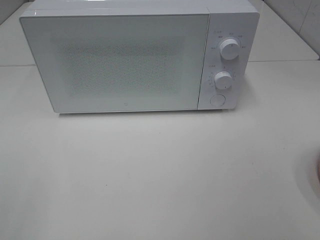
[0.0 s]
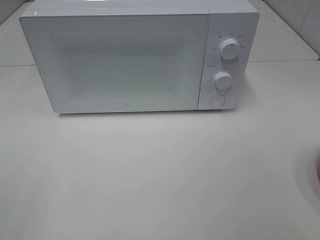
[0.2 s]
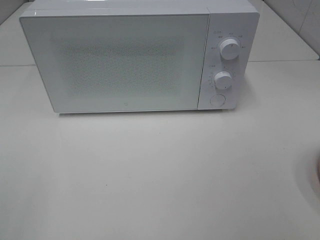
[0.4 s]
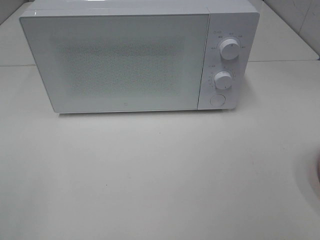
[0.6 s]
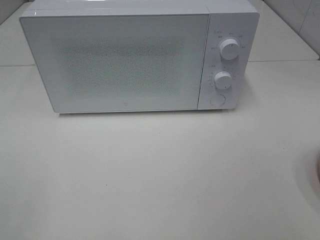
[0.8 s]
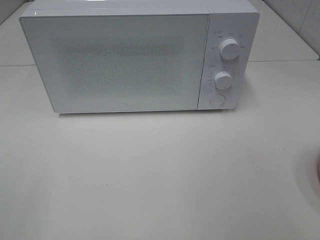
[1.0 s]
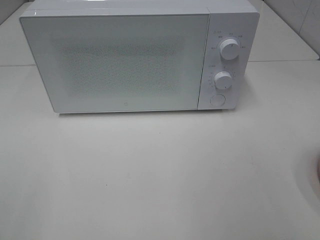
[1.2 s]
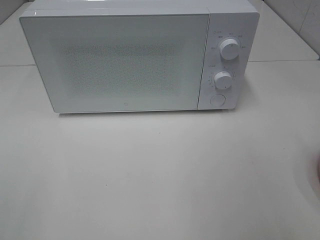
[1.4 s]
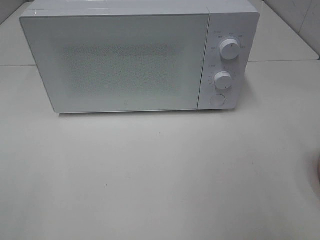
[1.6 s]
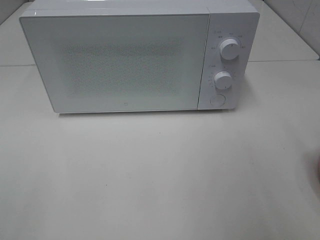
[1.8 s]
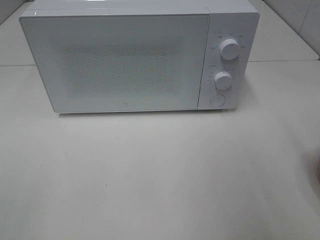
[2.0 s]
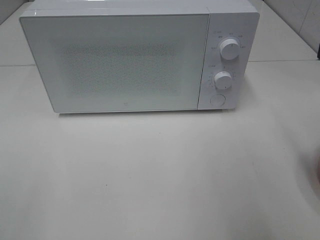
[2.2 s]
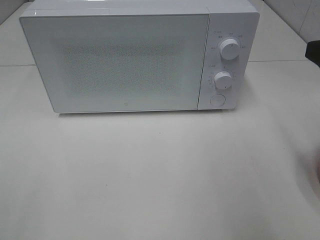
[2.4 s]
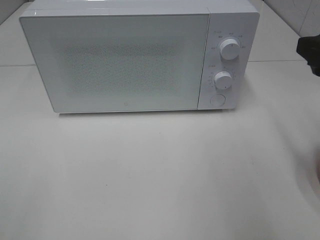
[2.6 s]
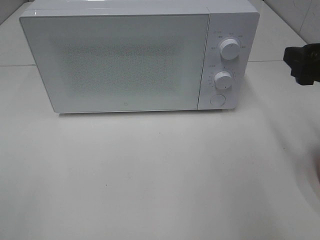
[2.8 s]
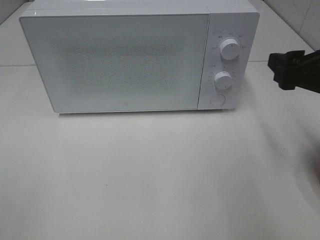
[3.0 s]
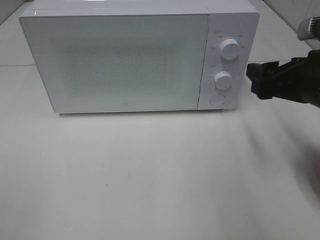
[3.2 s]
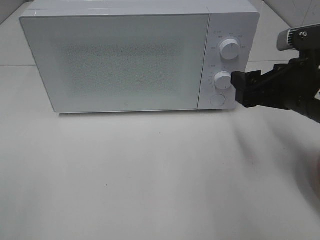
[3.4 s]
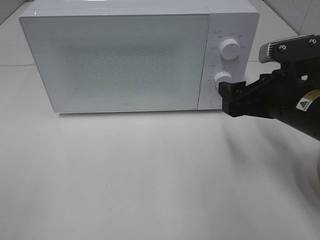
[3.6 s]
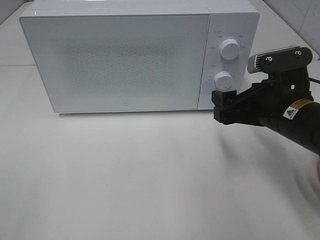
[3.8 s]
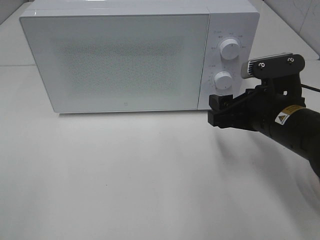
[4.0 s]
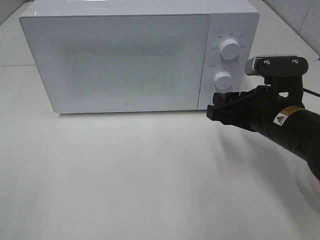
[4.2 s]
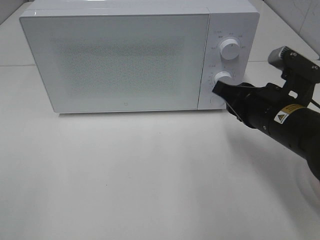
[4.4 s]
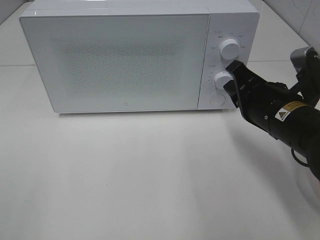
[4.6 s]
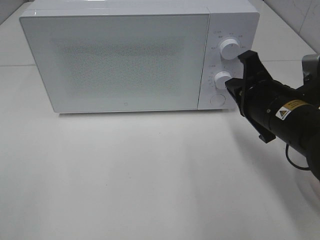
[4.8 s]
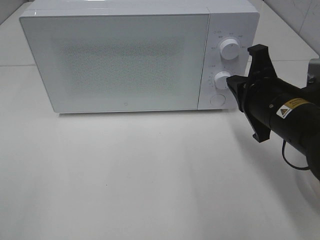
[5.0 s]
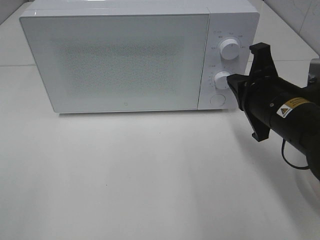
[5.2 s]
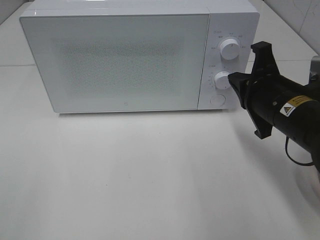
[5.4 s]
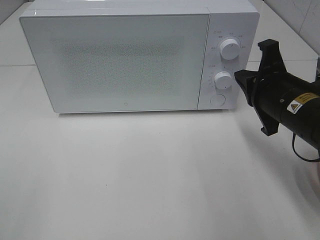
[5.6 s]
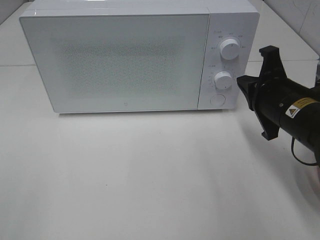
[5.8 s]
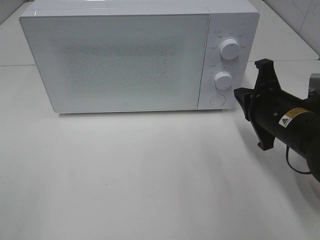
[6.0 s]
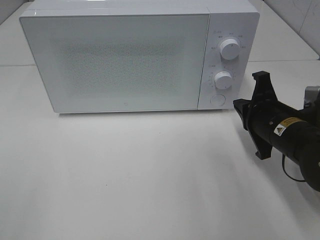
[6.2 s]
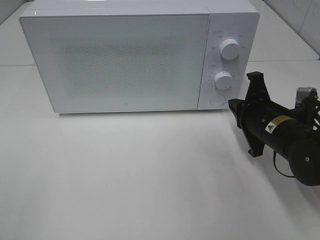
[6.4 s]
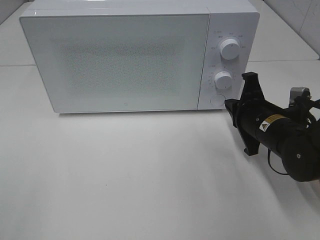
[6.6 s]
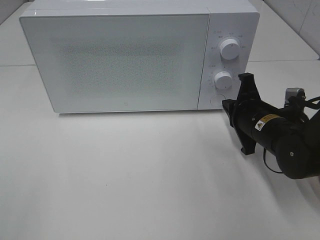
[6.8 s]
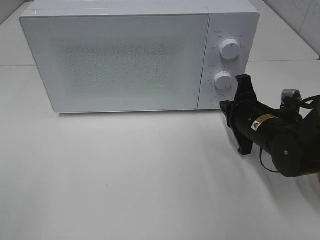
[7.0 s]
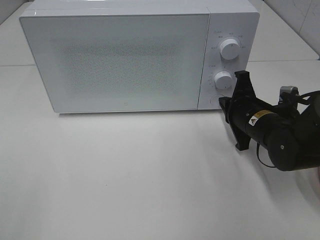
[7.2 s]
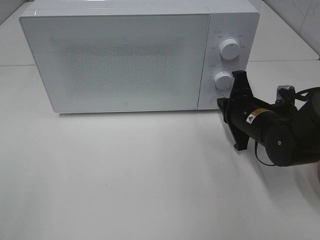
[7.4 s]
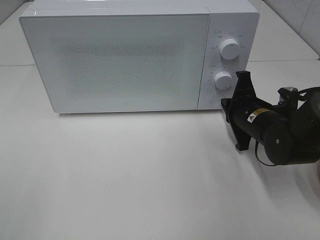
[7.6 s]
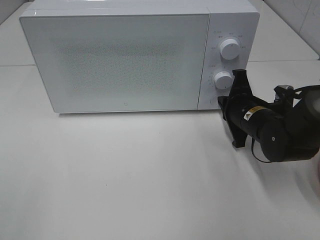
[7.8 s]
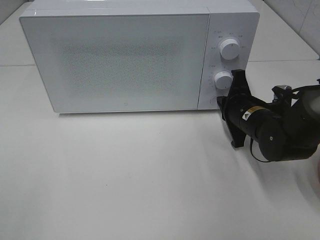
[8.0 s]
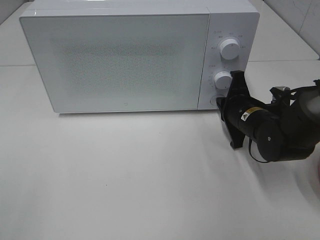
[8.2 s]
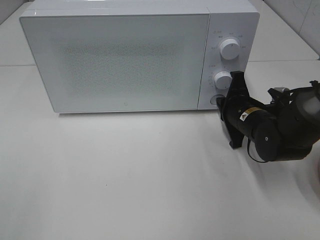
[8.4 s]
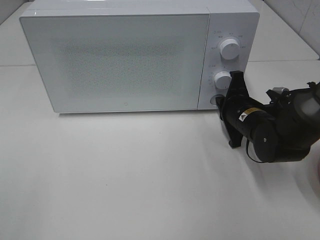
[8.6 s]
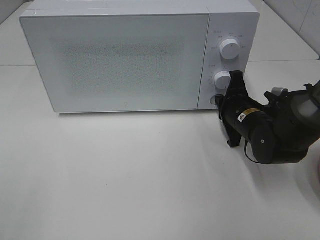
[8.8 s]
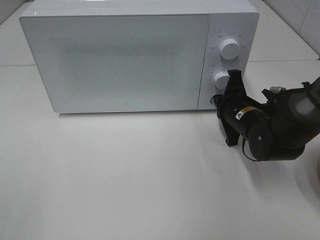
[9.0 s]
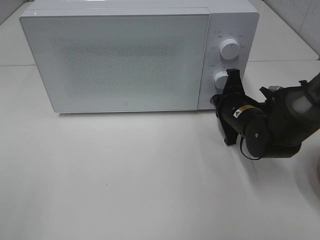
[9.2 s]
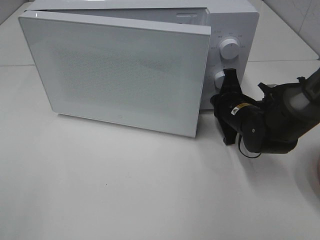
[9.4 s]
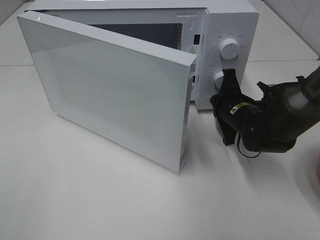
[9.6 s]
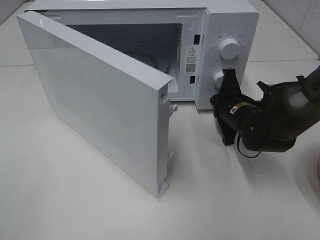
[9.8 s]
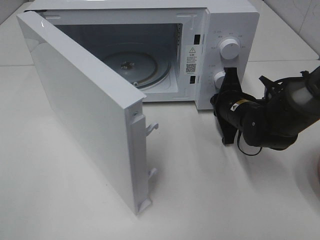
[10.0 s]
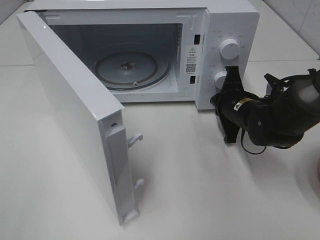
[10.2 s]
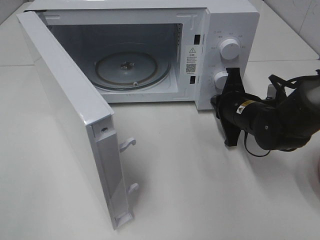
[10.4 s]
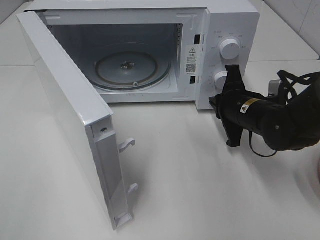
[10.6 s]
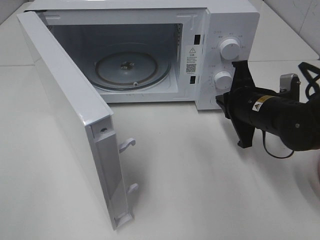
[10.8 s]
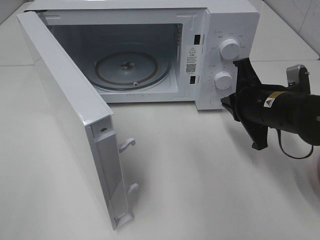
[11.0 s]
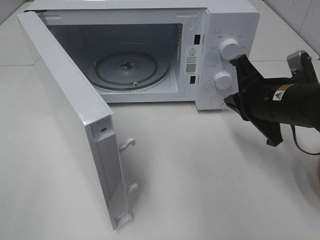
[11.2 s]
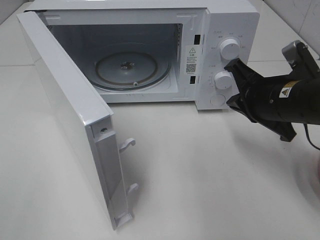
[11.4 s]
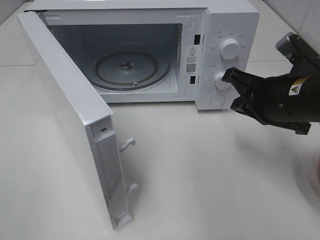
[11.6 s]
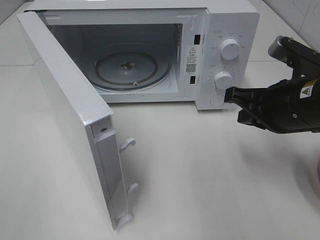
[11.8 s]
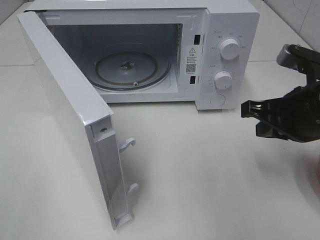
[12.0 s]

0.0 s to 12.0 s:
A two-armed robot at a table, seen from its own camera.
Task of the whole recording: Heat the burger.
Step, 0.0 to 10.4 s: Right hand: press the switch.
1.6 to 3.0 s: The right gripper goes roughly 15 cm forward and downward.
3.0 to 4.4 s: The right gripper is displaced to the left and downward by about 10 cm, and closes up.
6.0 to 7.6 s: The right gripper goes about 5 cm forward.
7.6 to 9.0 s: There are only small adjustments of the grippers.
10.4 to 12.0 s: The right gripper moves upward, backward and to the right, some 15 cm.

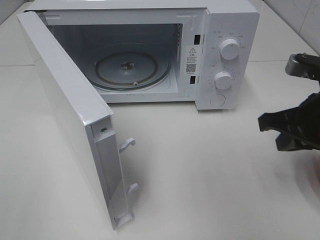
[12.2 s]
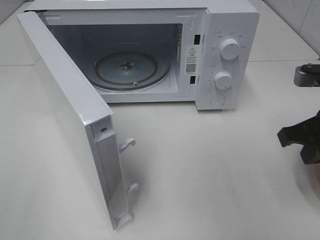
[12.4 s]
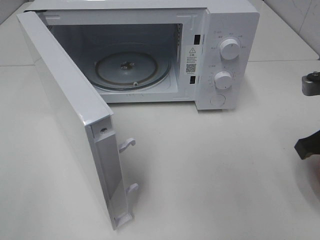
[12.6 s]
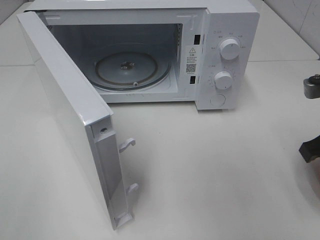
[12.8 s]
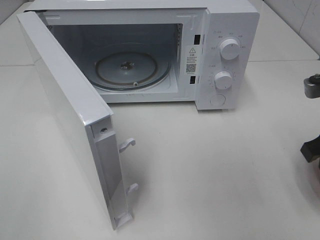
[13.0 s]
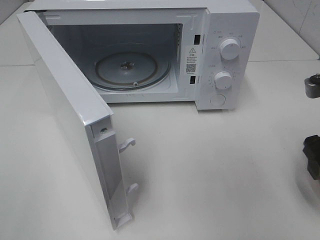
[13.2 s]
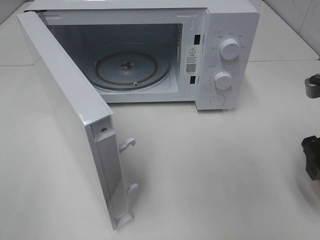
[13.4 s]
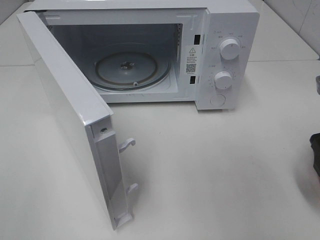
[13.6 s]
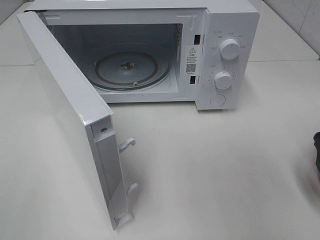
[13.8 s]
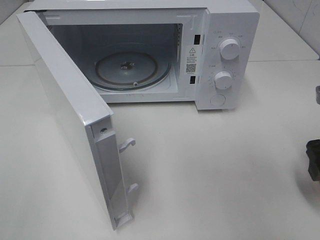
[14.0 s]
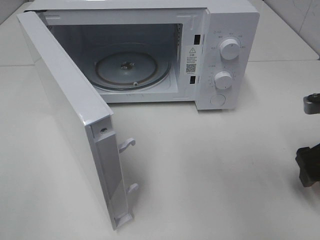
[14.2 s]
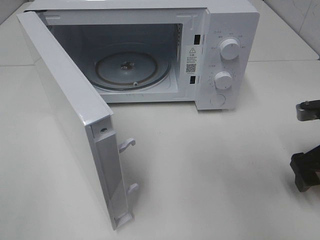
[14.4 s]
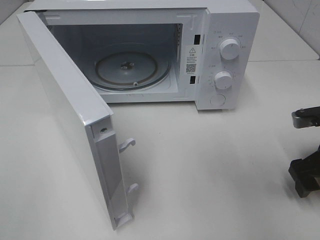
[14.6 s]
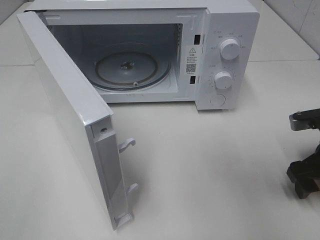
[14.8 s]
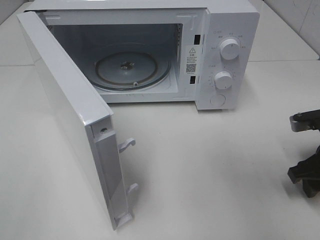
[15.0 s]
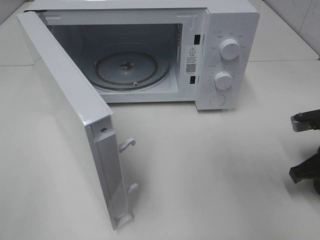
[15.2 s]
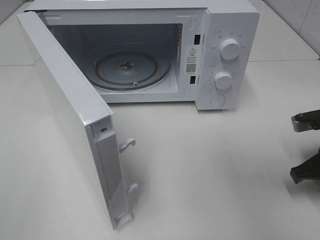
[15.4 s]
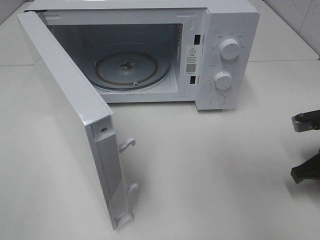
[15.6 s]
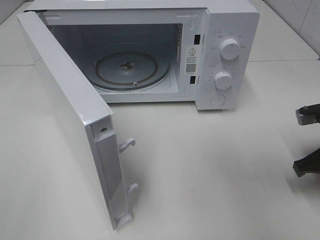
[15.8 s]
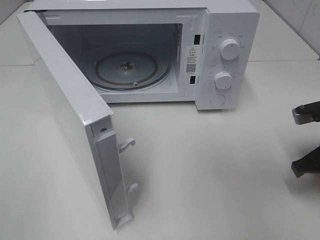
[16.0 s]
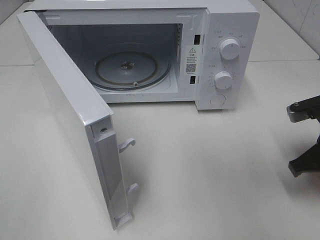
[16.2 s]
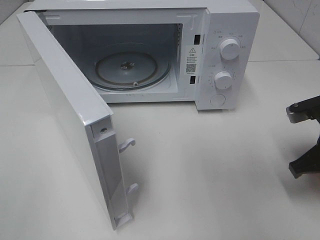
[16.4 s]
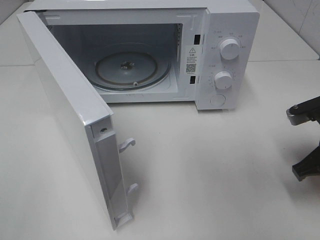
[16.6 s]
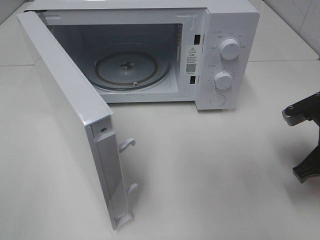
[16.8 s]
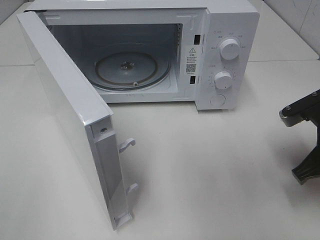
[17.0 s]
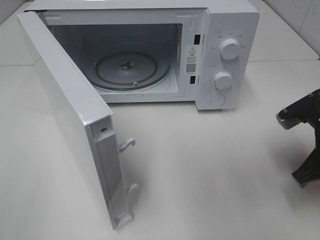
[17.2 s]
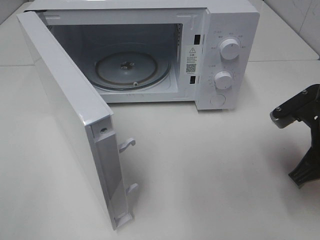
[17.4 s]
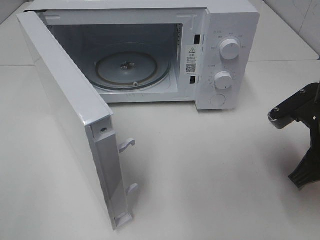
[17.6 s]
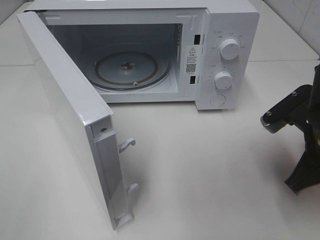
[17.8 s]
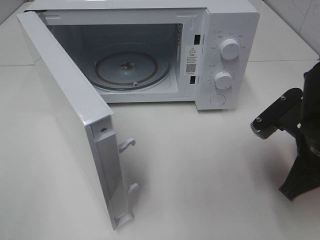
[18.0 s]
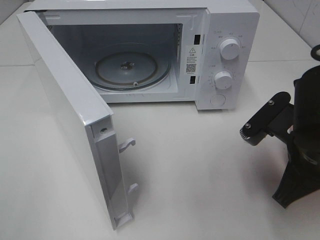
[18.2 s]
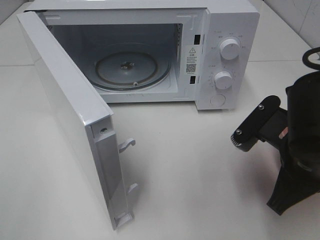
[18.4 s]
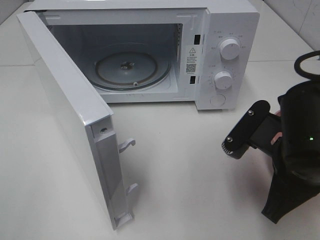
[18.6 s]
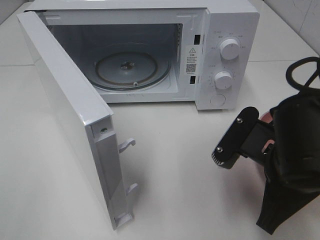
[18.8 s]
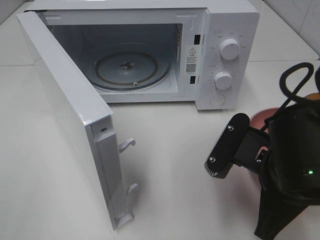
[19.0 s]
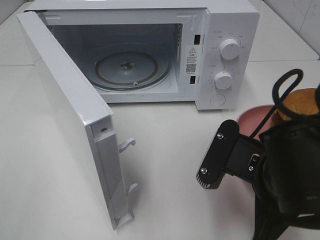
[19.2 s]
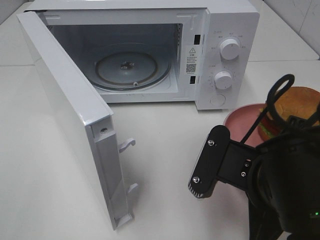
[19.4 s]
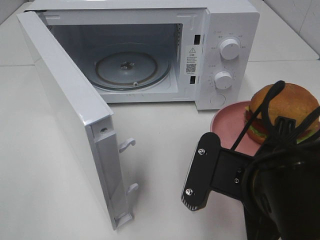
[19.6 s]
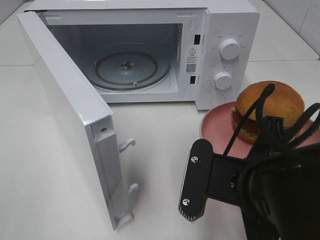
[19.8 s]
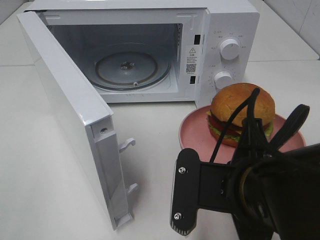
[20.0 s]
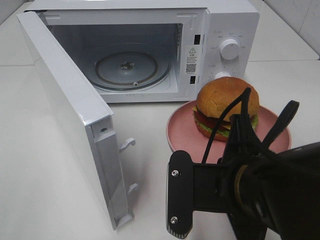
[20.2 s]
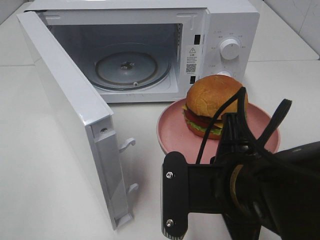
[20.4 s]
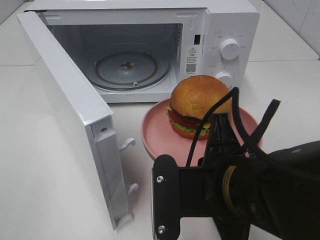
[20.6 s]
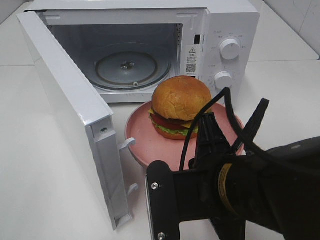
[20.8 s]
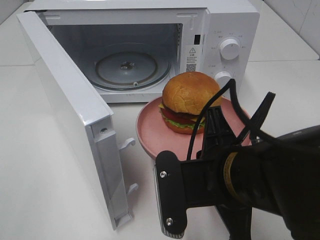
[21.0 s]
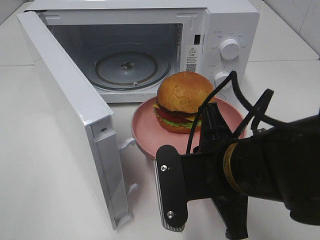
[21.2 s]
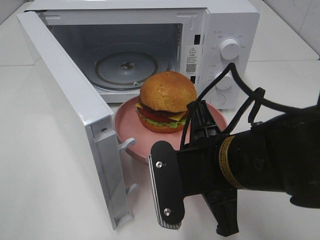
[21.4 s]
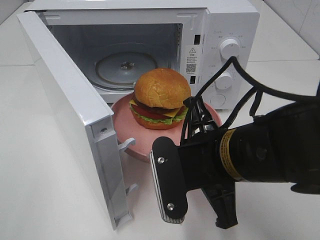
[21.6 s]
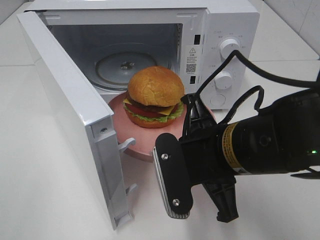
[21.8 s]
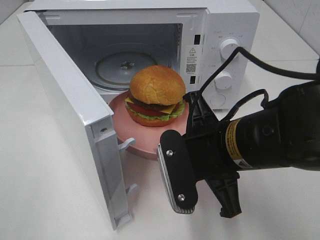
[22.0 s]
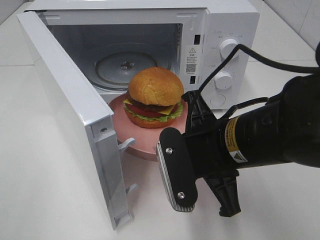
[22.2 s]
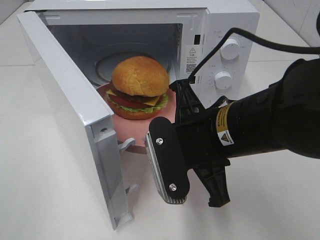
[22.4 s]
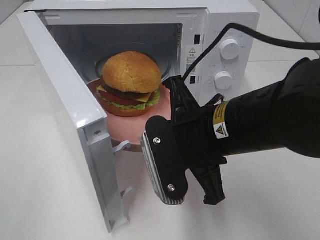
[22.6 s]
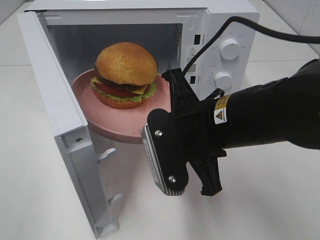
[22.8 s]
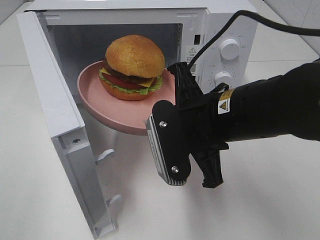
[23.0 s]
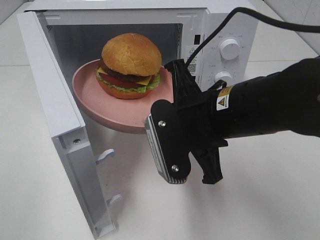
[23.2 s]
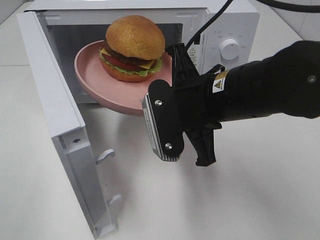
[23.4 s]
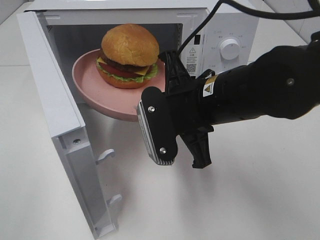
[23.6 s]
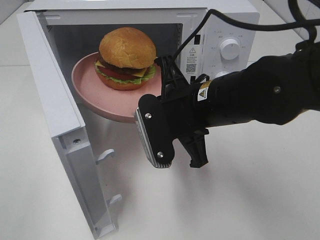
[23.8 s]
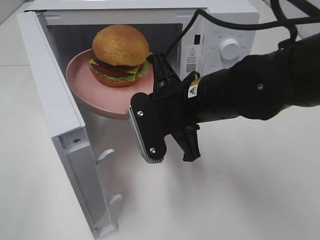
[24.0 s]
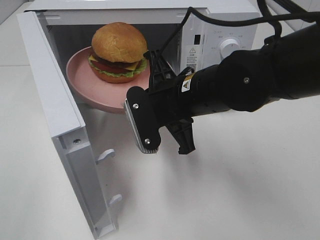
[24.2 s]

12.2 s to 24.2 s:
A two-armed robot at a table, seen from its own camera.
Task of the whole recording: Heat the burger.
Step, 12.2 to 15.6 s: Right hand: grab the plate with the hamburger.
12.2 to 13.8 s: The right gripper shifts roughly 5 cm to the right, and opens.
13.8 to 15.2 s: The right gripper heads downward, covering about 10 cm, and closes up.
15.2 to 16.6 s: The right gripper closes its fingers.
16.6 to 18.2 s: The right gripper moves to the left, about 10 cm.
18.2 to 19.8 s: The right gripper travels to the left and backward by approximately 10 cm.
22.6 to 24.2 s: The right gripper heads forward, covering about 5 cm.
